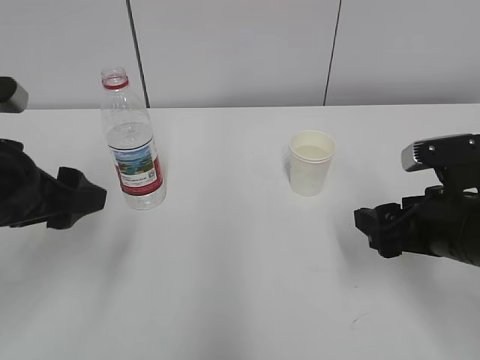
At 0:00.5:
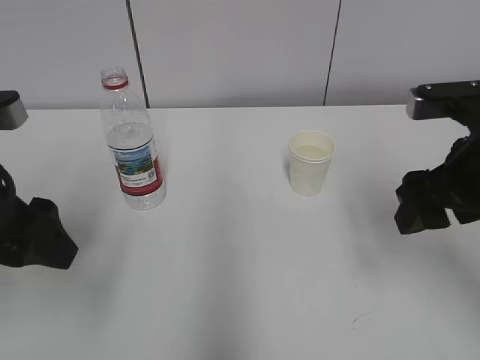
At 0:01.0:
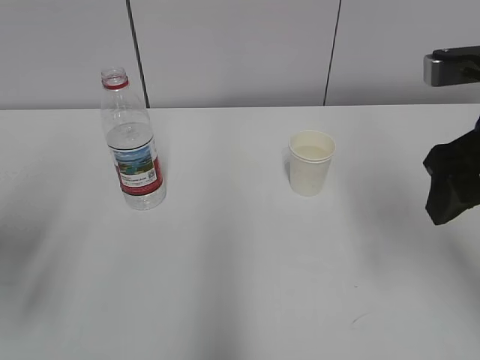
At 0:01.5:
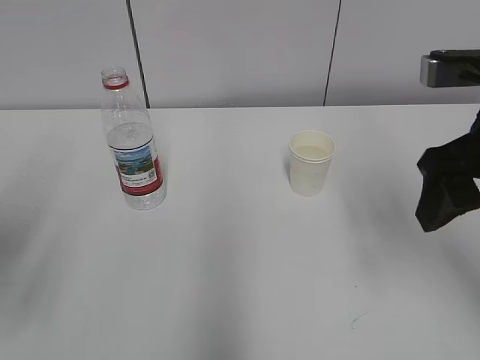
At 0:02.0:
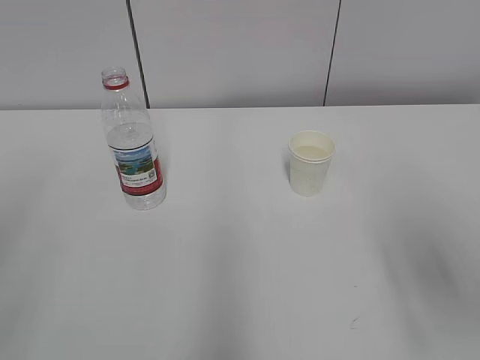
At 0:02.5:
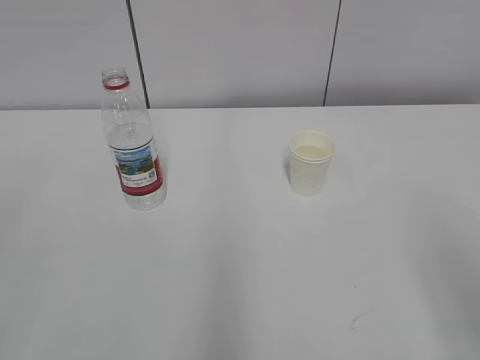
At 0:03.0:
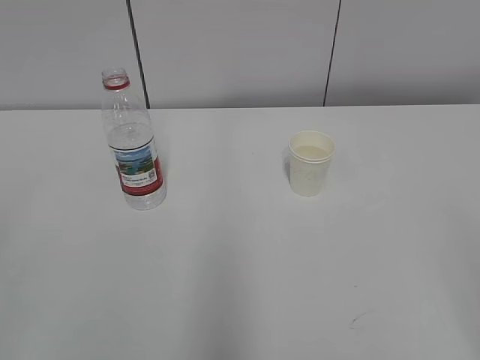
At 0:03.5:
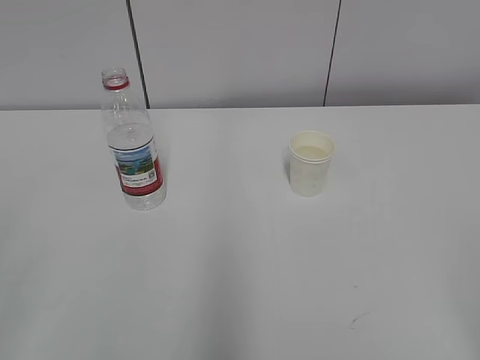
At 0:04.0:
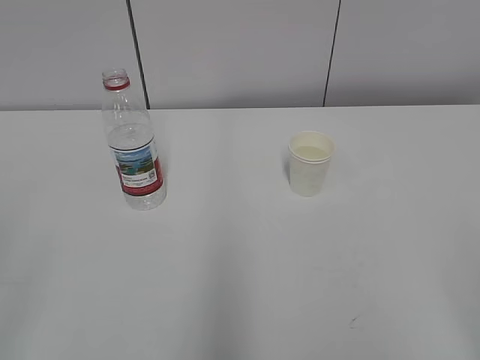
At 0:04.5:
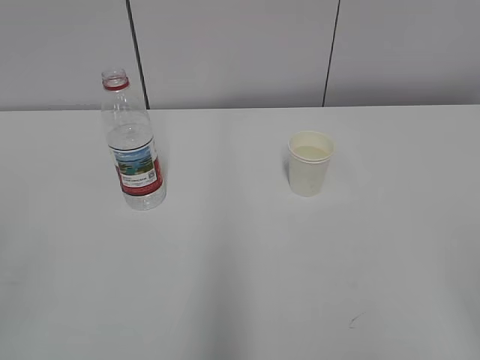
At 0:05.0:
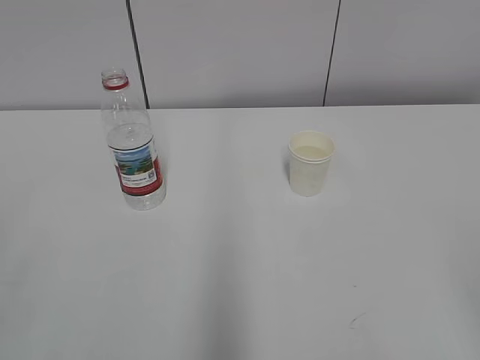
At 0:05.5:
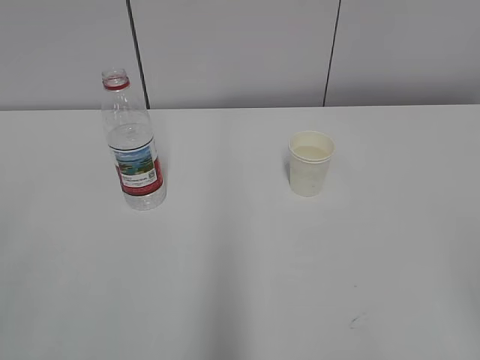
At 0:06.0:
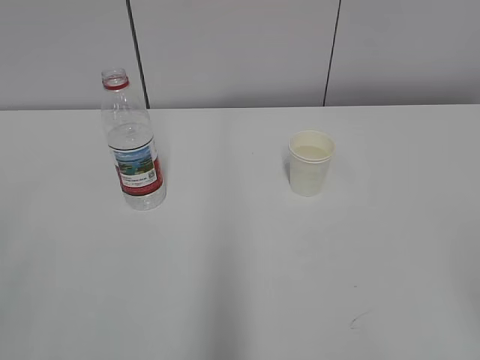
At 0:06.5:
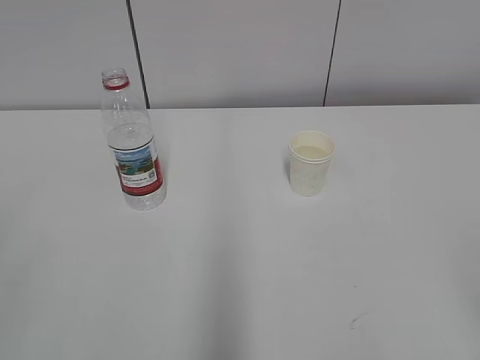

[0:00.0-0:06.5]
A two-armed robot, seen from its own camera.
0:00.0 to 0:02.0: The left gripper moves backward, upward and to the left, roughly 20 cm, while the right gripper travels upward and backward by about 15 cm.
0:02.0 to 0:04.5: The right gripper goes about 15 cm backward and to the right.
